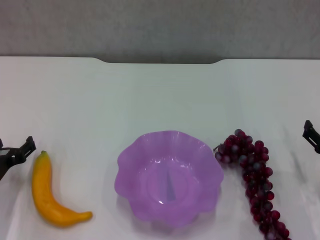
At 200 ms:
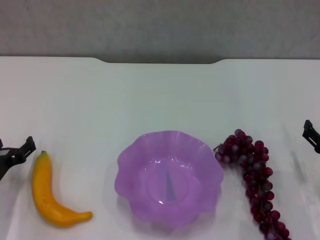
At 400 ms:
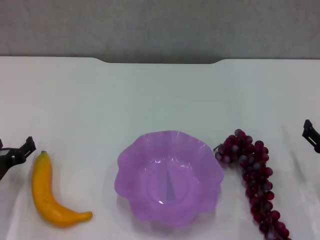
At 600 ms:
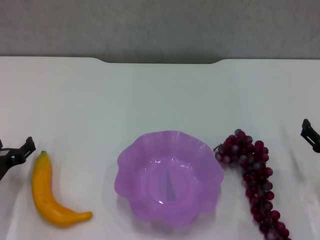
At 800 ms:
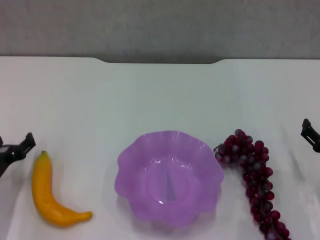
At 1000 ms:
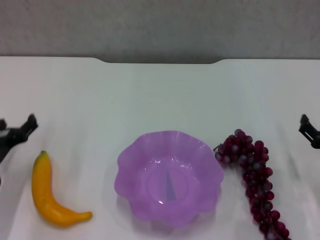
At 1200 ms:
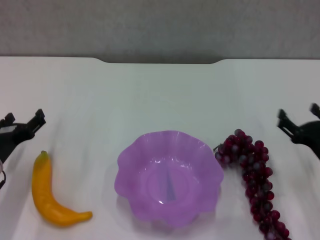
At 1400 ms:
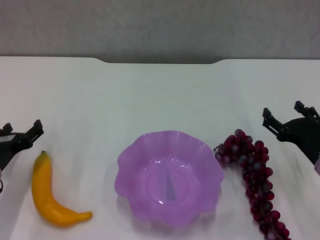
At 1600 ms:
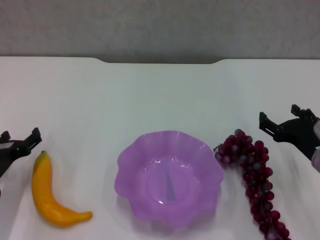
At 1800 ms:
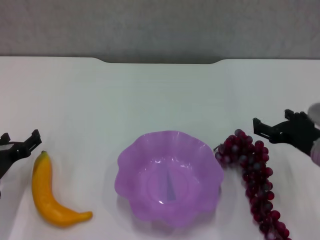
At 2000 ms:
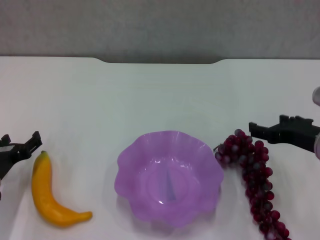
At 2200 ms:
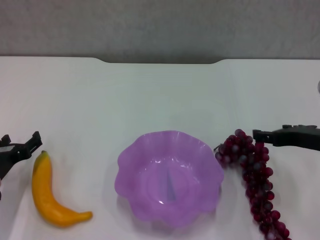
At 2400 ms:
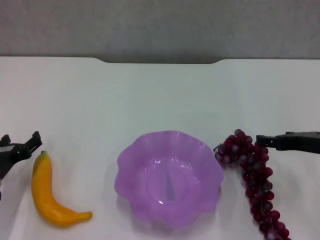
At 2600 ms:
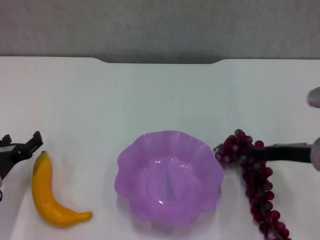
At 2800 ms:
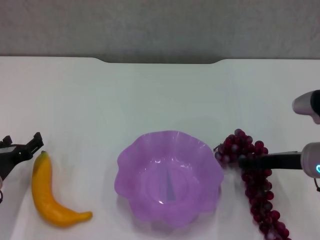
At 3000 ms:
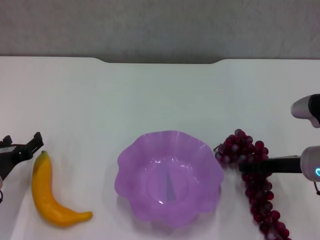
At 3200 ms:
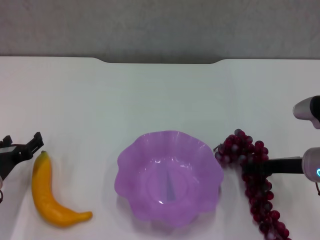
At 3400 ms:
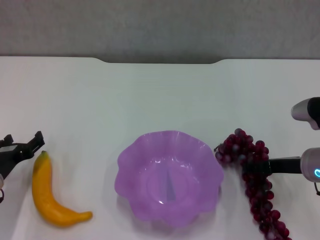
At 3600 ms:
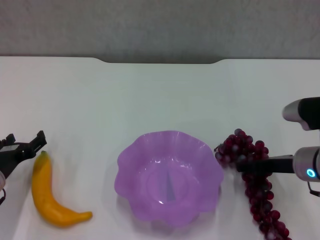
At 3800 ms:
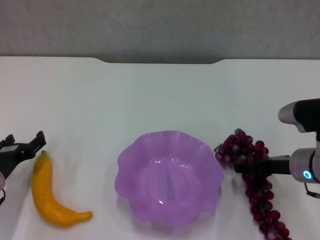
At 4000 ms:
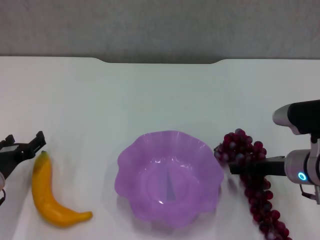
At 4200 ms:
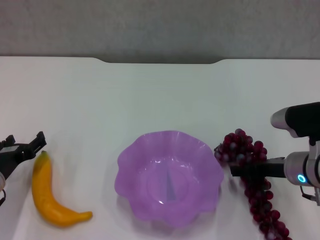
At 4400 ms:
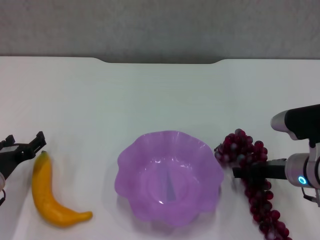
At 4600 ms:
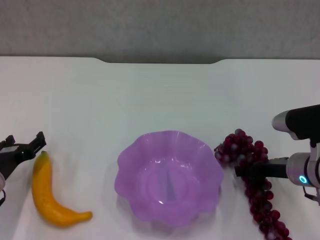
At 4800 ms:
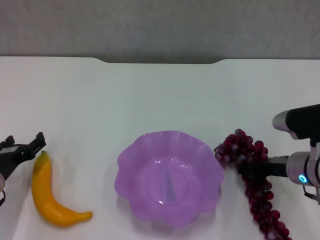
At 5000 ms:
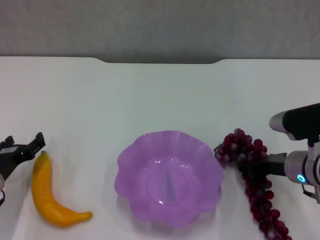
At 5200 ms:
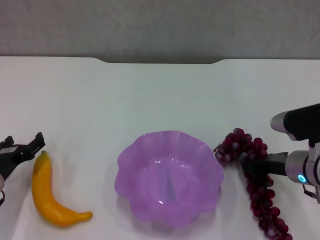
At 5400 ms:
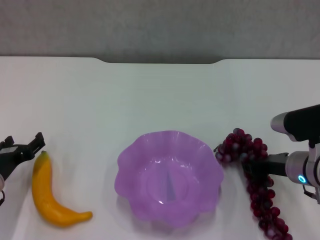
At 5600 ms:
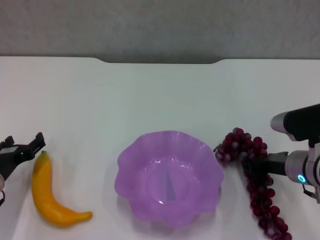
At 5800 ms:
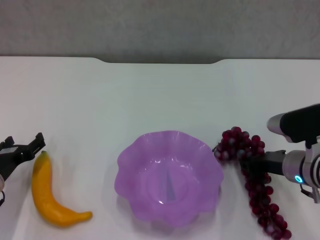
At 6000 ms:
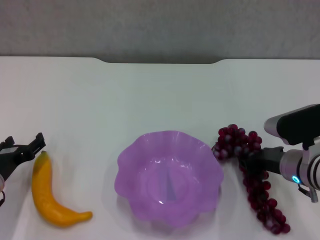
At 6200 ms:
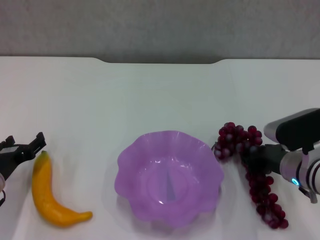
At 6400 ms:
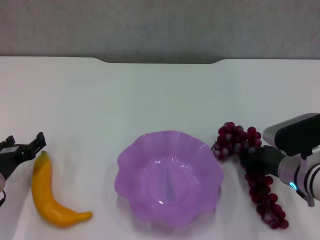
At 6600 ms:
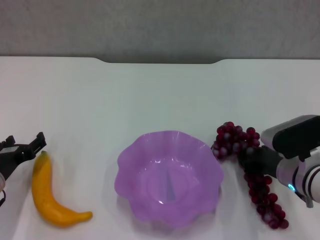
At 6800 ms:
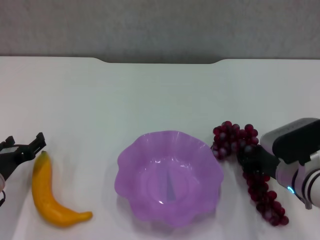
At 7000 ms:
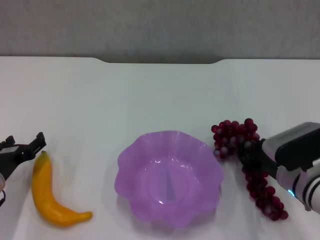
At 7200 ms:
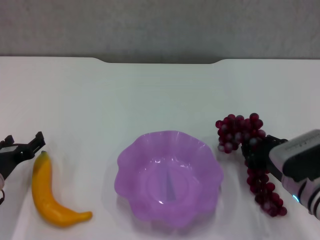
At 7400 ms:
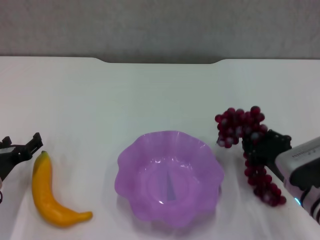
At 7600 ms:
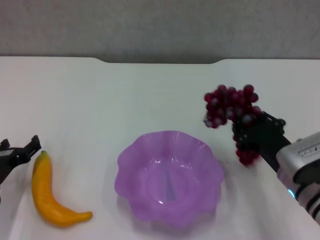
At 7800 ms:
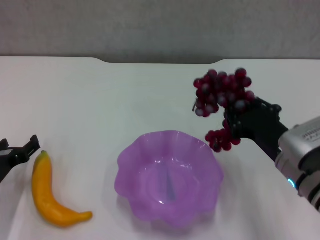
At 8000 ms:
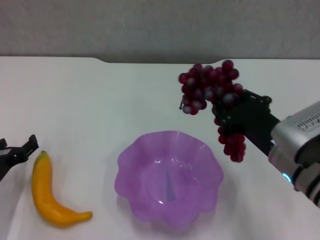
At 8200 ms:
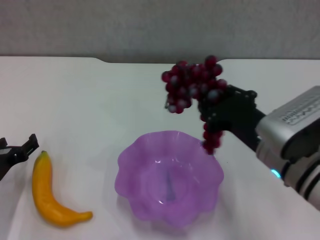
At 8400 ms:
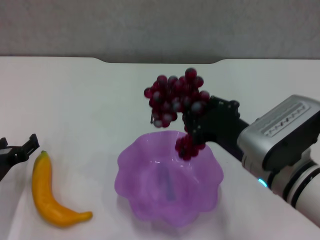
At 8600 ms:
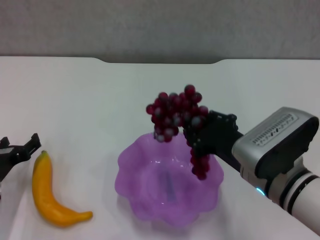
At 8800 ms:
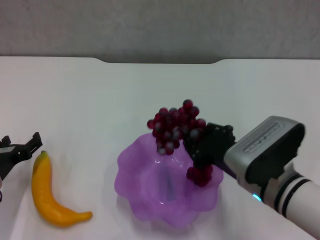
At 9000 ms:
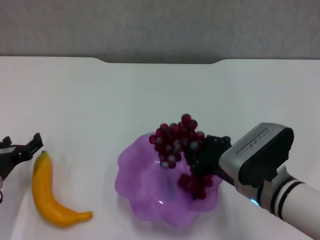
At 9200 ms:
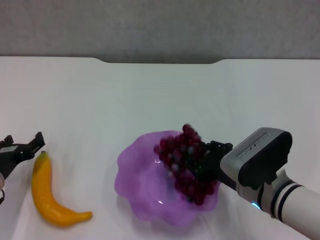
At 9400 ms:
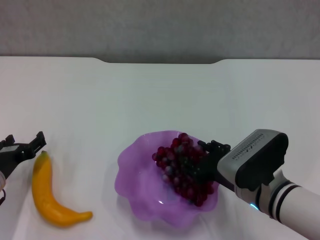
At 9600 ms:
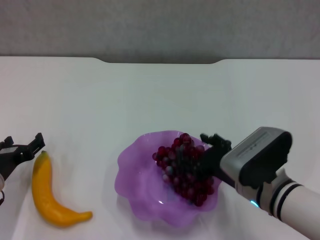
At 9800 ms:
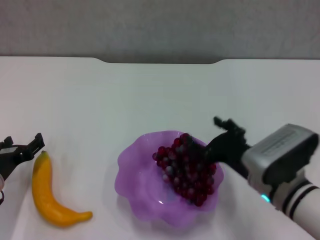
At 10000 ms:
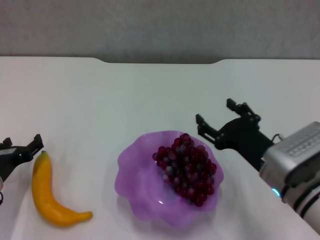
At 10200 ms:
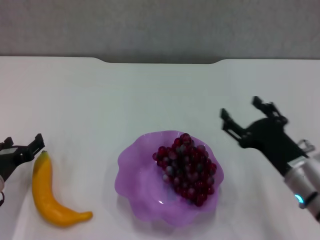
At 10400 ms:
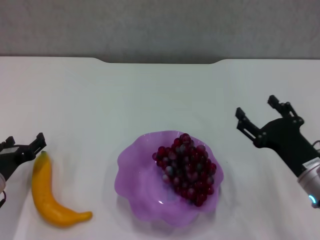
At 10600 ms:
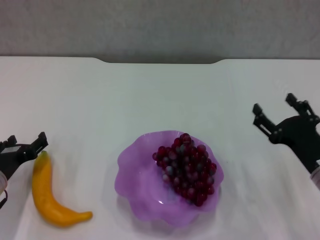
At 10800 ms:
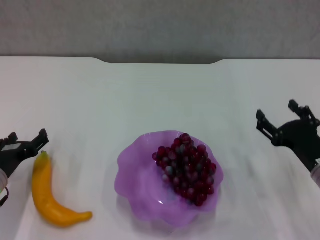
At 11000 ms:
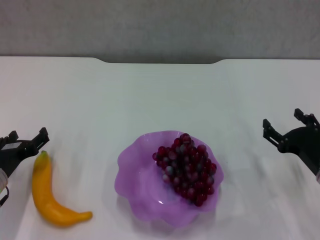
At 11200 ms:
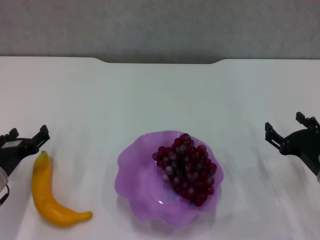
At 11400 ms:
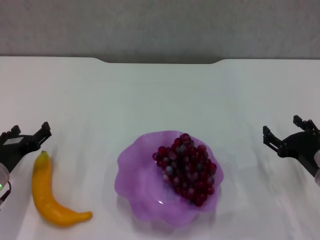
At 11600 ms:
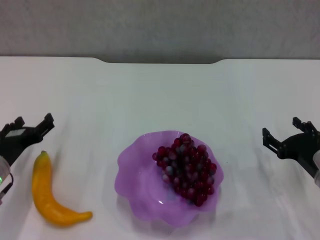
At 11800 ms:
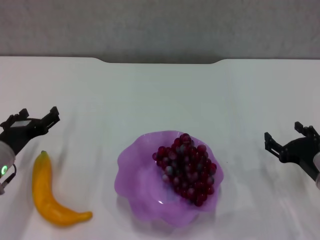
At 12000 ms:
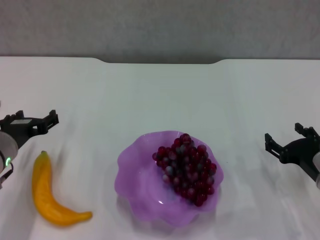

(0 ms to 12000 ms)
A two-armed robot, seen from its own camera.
Step, 0 ms - 5200 ms: Grasp the grape with right gripper.
Step, 5400 ms - 9800 ms: Place the grape in the purple plate with right gripper.
0 ms - 1600 ms: The right gripper heads to the left, covering roughly 5 cm.
3000 ms - 4400 ms: The grippers stay close to where they were, moving slightly.
4400 ms - 6000 ms: The right gripper closes up.
6000 ms - 7600 ms: The right gripper moves backward, some 5 cm.
7600 ms - 9000 ms: The right gripper heads to the left, covering roughly 5 cm, and goes upward and returns, approximately 10 cm each way.
9000 ms - 10400 ms: The right gripper is displaced to the right by about 10 cm, and opens.
10400 ms - 12000 ms: The right gripper changes place by approximately 5 cm; the left gripper travels upward by about 5 cm.

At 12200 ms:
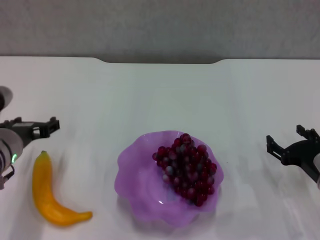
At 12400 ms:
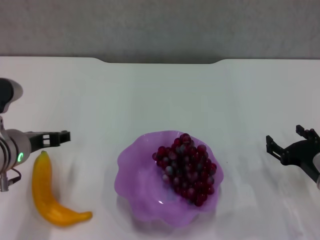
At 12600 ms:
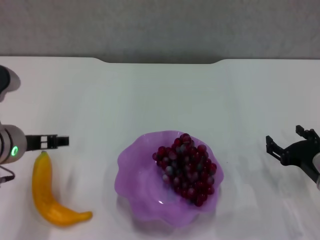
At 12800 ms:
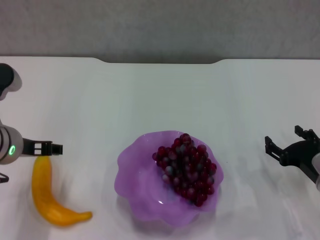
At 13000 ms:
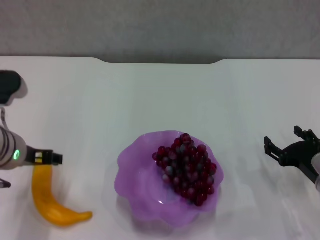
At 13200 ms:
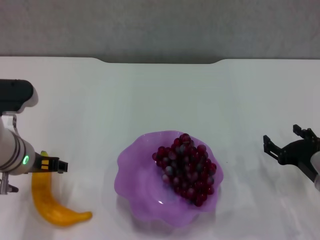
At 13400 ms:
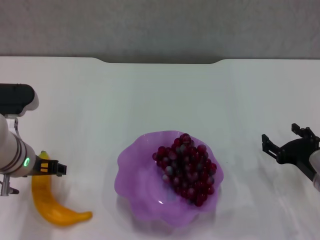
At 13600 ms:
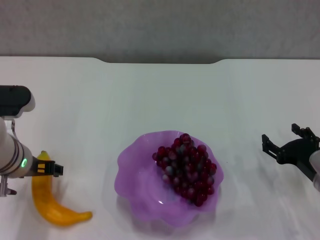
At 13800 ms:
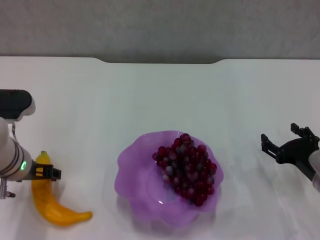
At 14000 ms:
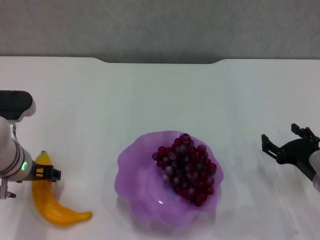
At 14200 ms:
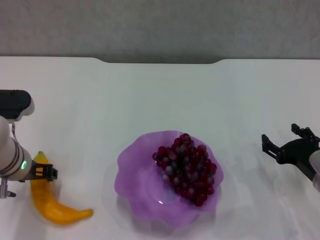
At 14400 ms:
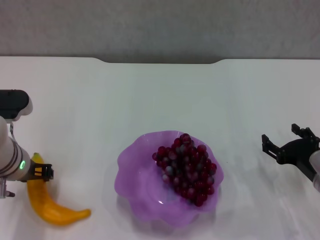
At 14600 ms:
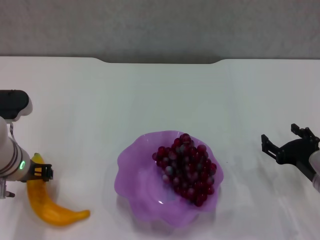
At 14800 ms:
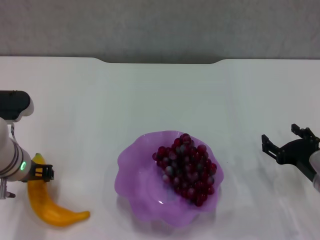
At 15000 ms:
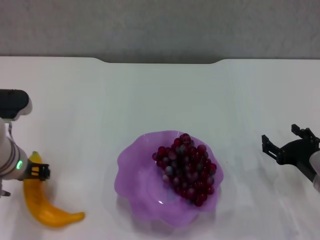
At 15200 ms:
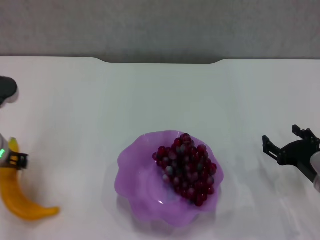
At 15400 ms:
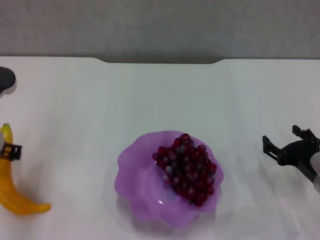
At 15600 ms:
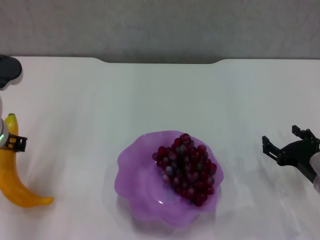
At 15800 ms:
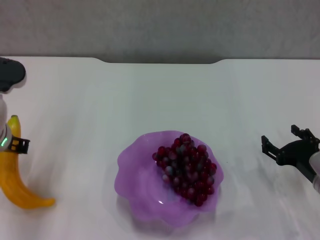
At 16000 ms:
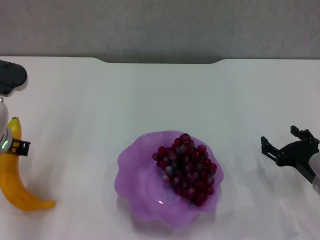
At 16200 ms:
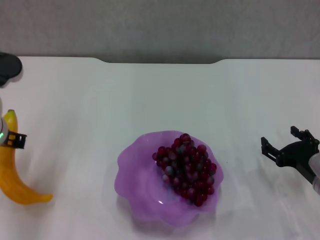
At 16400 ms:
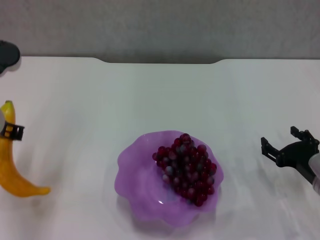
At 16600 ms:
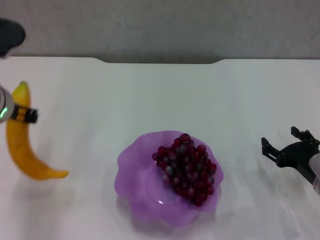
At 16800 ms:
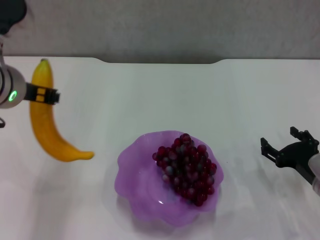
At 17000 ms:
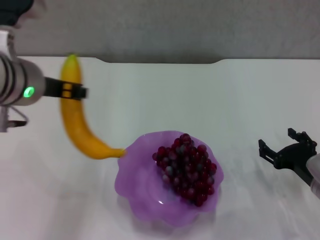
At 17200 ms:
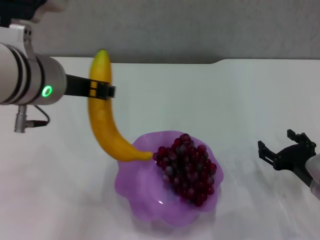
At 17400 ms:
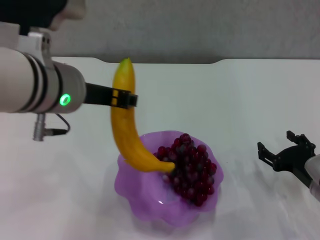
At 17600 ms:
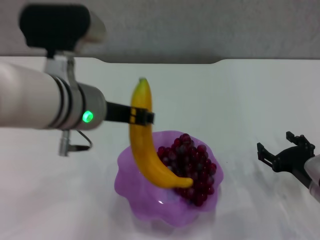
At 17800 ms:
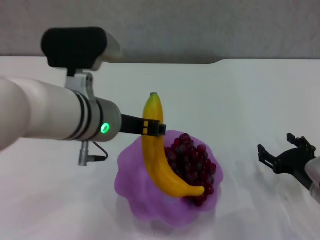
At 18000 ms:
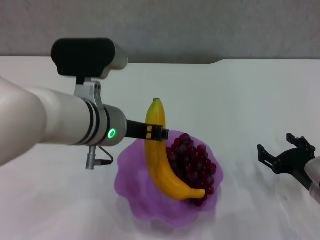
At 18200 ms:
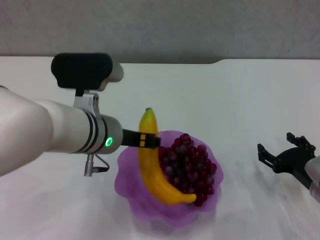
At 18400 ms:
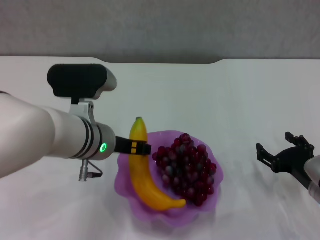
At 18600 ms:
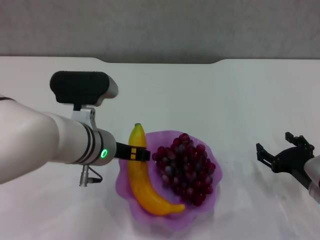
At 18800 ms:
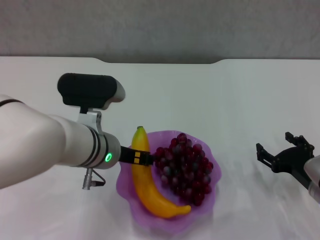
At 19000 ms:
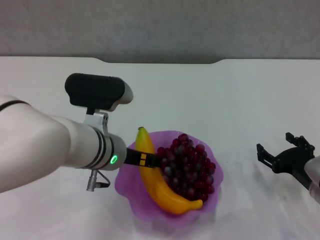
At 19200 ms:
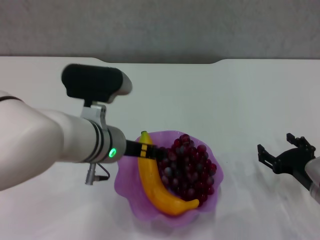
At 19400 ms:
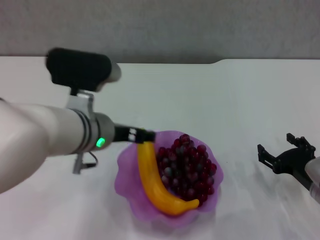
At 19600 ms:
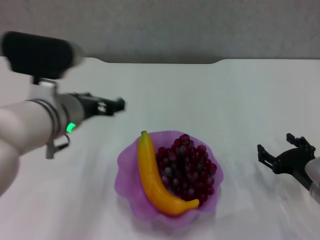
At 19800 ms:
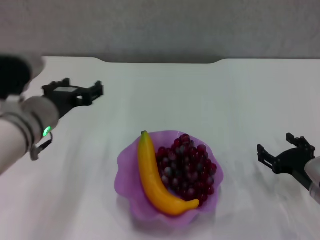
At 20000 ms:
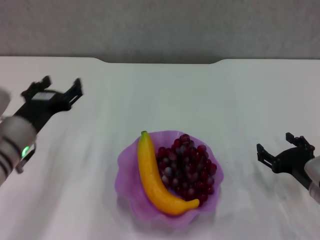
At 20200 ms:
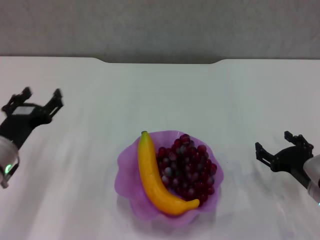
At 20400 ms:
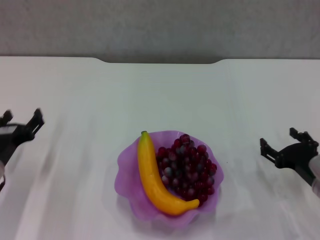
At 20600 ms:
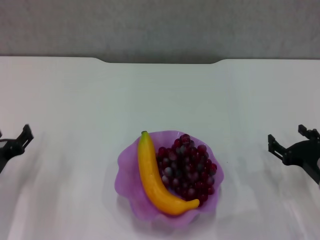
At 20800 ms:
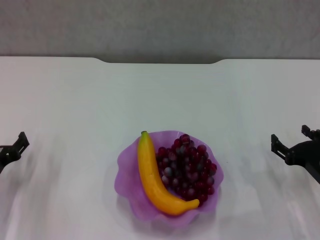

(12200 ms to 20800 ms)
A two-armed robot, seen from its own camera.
Step, 12200 ms - 14400 ms: Grasp the banana with left gripper.
Step, 14600 ms - 19400 ms: Place the banana in the purple plate with left gripper.
13600 ms - 15000 ms: The left gripper closes up.
15000 ms - 16600 ms: The left gripper travels upward by roughly 10 cm.
16600 ms - 18000 ms: The left gripper heads to the right, covering some 10 cm.
18000 ms - 19400 ms: The left gripper opens.
19400 ms - 20800 ms: The left gripper is displaced to the left and downward by roughly 25 cm.

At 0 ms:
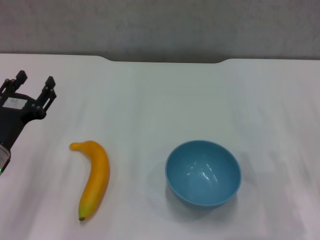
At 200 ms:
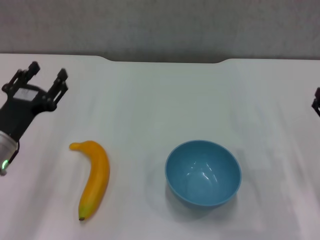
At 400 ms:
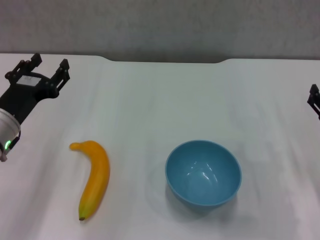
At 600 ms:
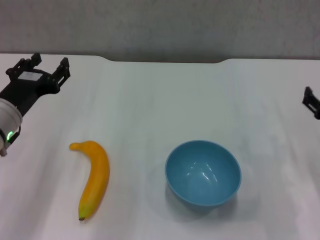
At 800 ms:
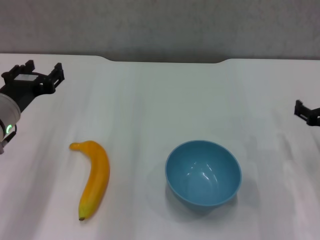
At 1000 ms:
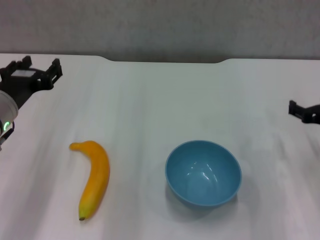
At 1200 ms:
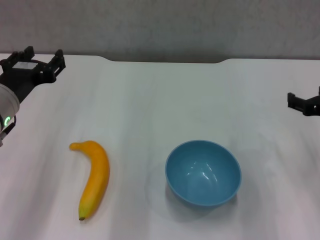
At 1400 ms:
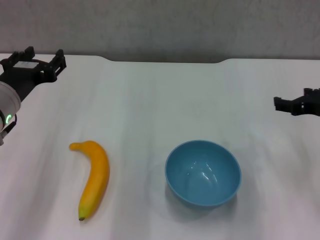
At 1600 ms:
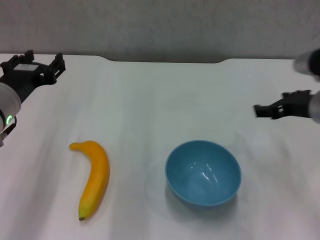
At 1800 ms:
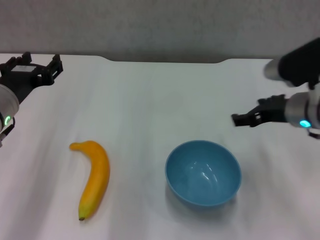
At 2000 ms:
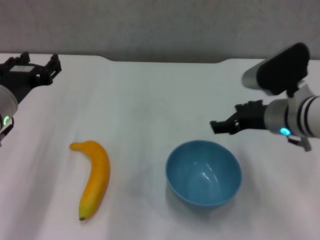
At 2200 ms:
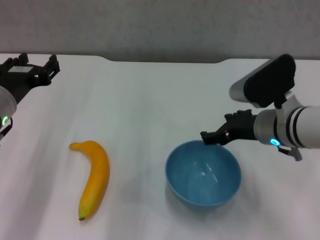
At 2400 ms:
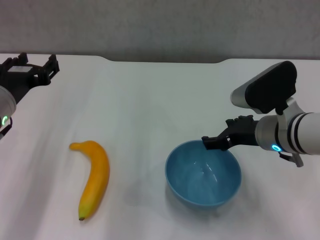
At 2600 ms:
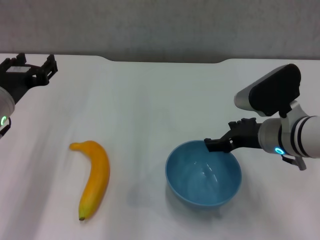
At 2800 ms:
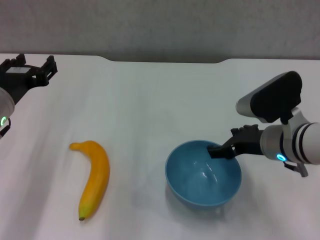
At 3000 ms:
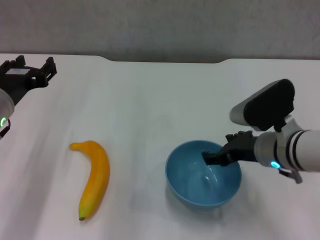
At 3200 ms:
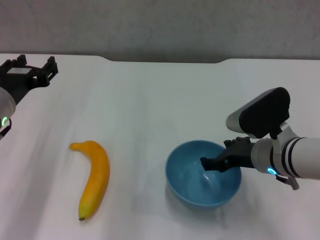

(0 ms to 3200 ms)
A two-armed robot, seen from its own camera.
0 ms - 1600 ms: The left gripper heads upward, covering about 10 cm. Meanwhile the right gripper shifts about 15 cm forward, upward and to the left.
1600 ms - 3200 ms: The right gripper shifts some 10 cm to the left and downward.